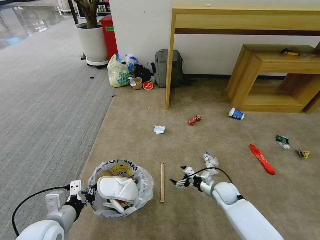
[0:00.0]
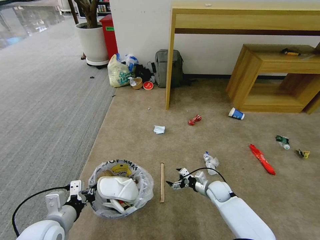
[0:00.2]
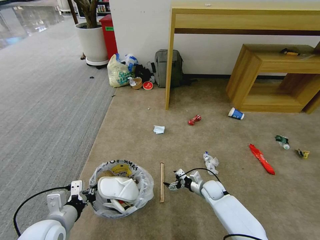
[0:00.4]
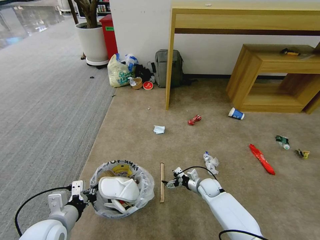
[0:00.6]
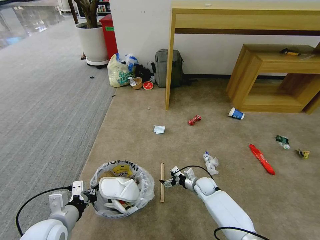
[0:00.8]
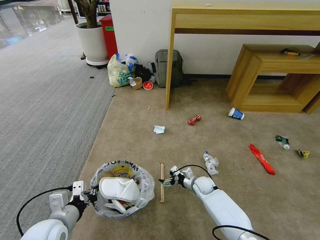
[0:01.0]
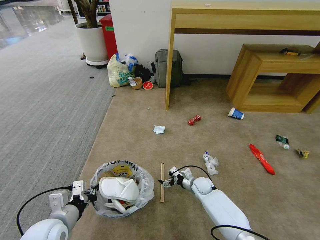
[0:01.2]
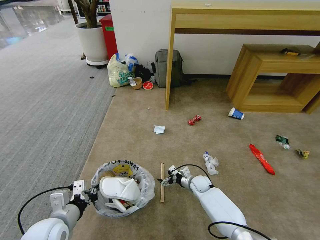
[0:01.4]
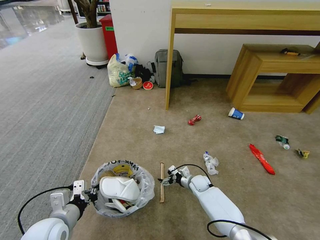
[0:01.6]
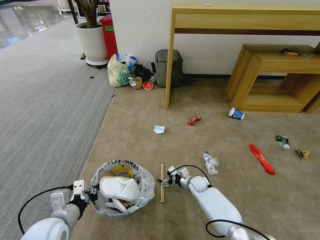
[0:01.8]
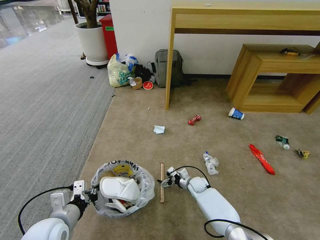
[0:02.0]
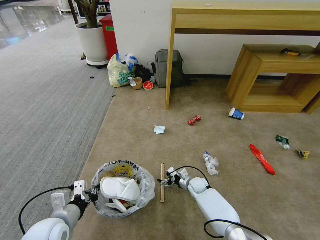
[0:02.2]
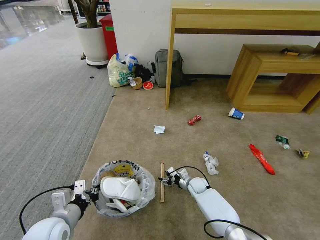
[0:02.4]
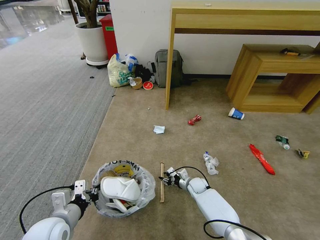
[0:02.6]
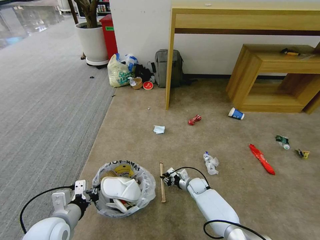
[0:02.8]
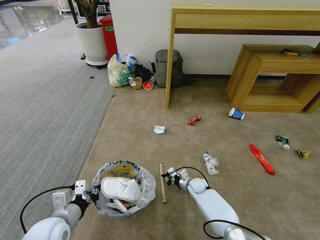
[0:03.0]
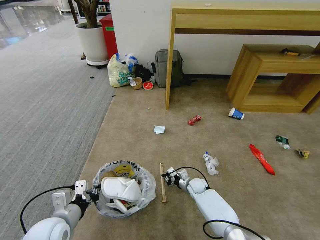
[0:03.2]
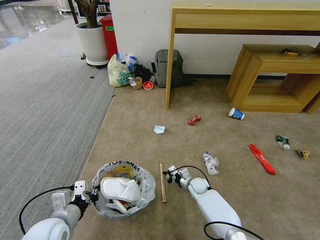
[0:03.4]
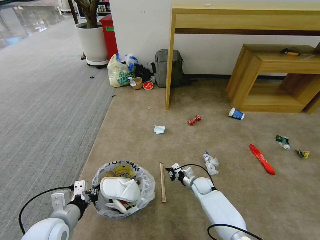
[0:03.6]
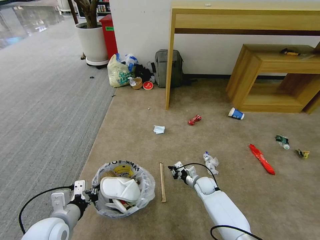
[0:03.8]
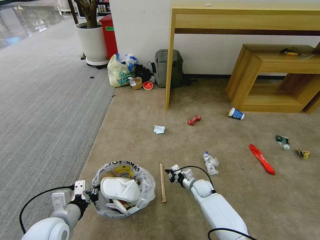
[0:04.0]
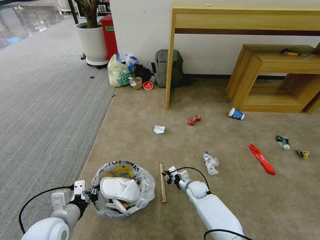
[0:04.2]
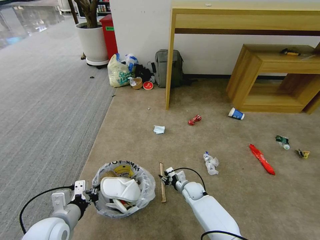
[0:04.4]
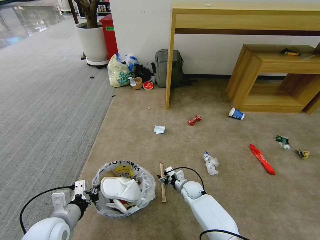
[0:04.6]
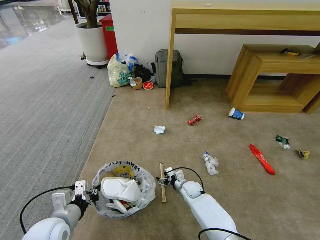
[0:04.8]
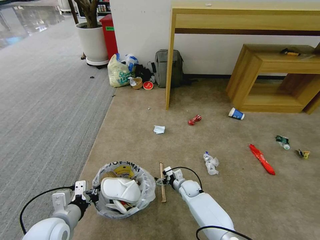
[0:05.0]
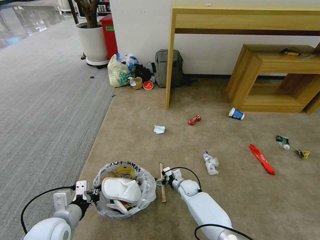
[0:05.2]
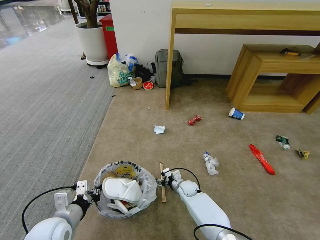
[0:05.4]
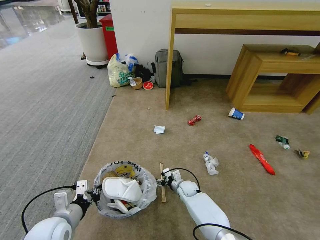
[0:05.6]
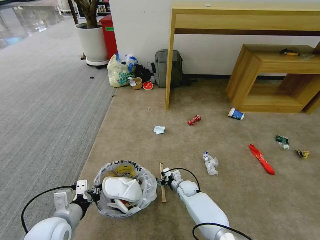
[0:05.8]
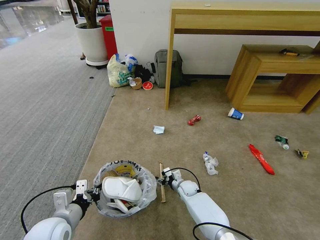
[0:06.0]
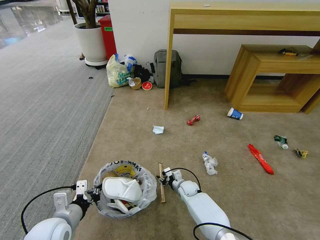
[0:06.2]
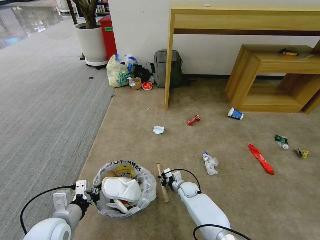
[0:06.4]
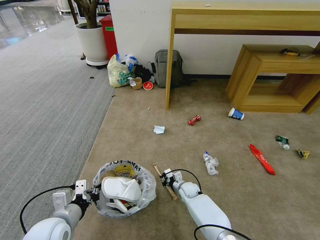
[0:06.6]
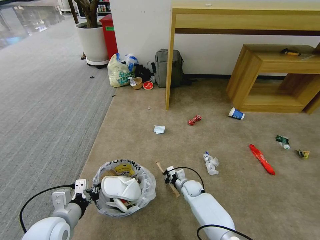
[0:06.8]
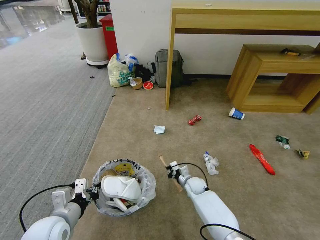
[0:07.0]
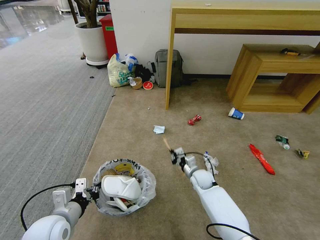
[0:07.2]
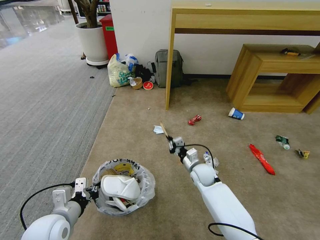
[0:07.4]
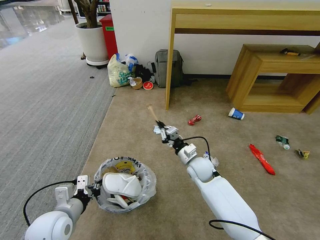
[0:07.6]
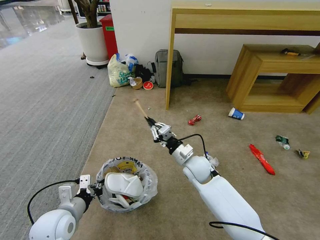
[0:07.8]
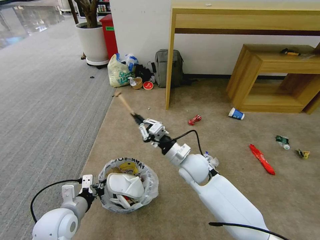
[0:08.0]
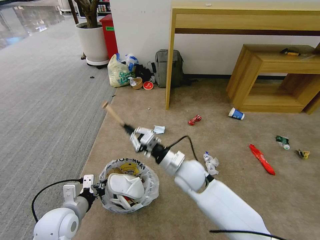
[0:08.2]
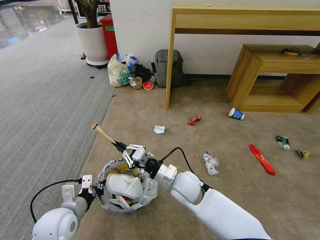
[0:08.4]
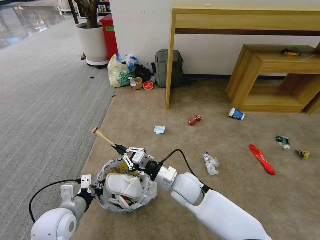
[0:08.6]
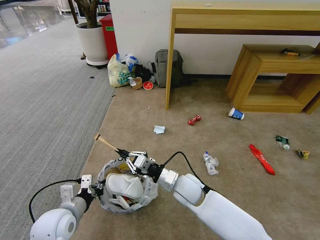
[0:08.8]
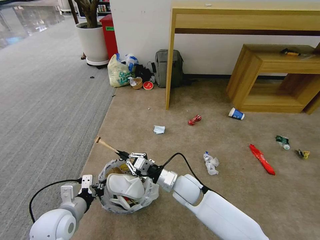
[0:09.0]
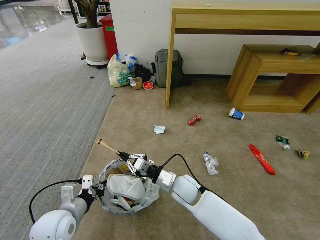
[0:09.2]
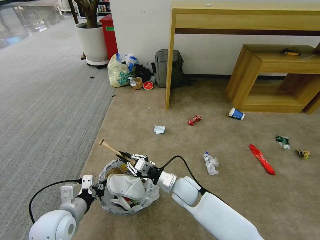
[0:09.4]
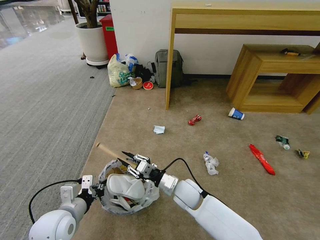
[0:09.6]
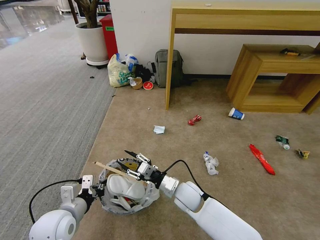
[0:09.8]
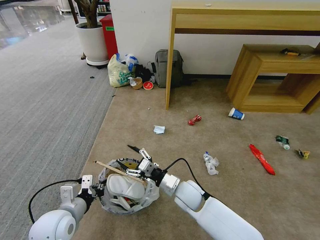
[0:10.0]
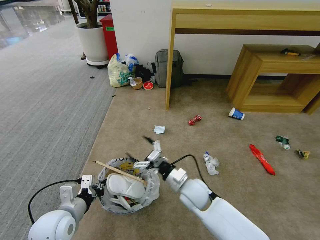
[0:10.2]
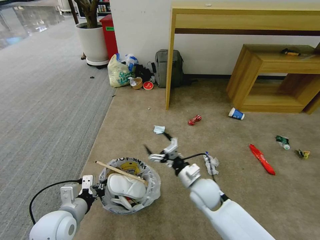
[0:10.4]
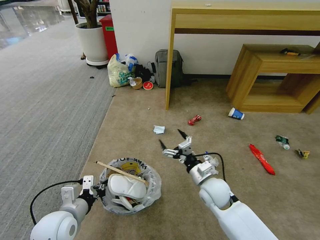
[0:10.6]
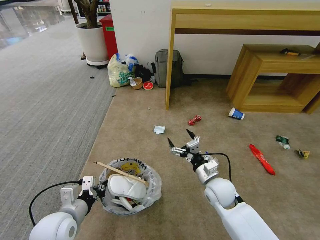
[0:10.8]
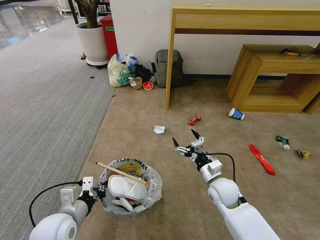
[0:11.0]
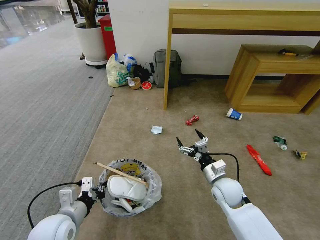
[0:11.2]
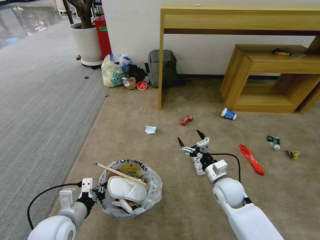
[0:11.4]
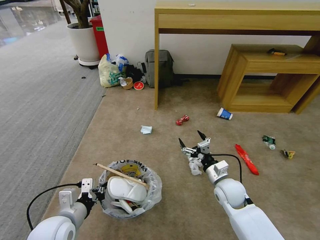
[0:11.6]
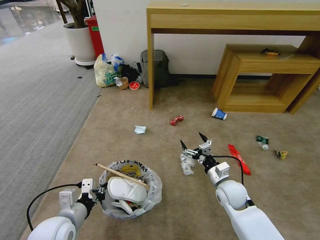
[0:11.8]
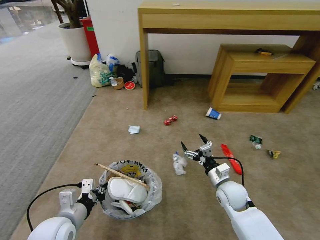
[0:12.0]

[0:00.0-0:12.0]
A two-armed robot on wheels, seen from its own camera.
Task of the whole recording: Pick up the trash bin and place the garbage on the floor into it.
0:00.0 to 0:01.6: The right gripper shifts approximately 10 cm to the left, forward and downward.
0:01.6 to 0:03.0: The right gripper closes.
0:03.0 to 0:06.0: The grippers make only small movements.
0:06.0 to 0:07.6: The right gripper moves upward, approximately 20 cm, and closes its fingers.
0:07.6 to 0:09.0: The right gripper heads backward and to the left, covering approximately 10 cm.
0:09.0 to 0:10.4: The right gripper opens its fingers.
0:10.4 to 0:12.0: The right gripper travels to the right by some 10 cm.

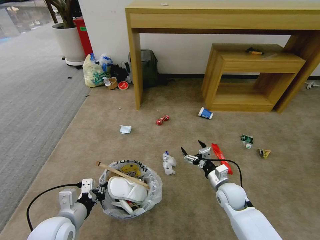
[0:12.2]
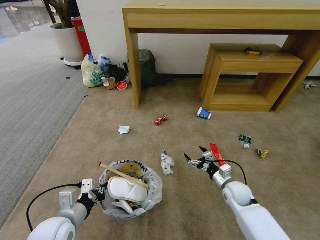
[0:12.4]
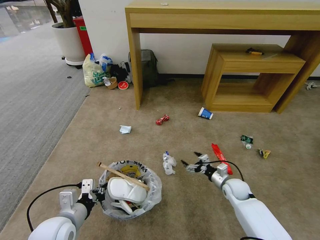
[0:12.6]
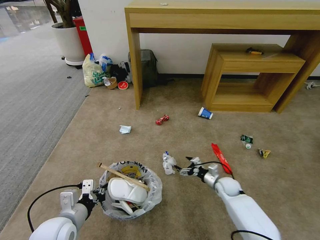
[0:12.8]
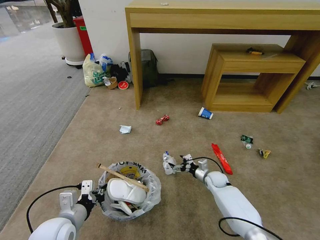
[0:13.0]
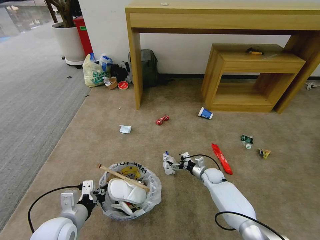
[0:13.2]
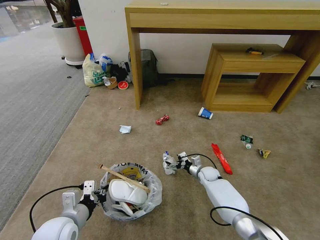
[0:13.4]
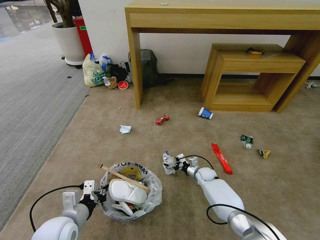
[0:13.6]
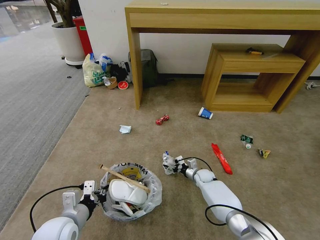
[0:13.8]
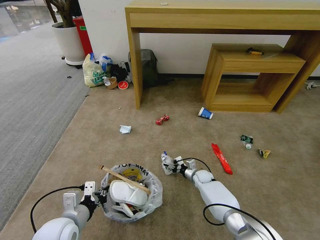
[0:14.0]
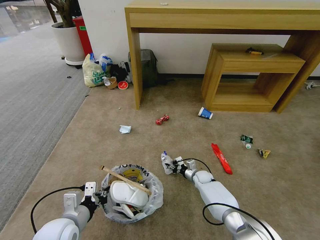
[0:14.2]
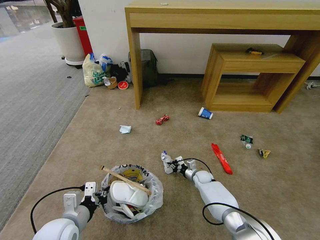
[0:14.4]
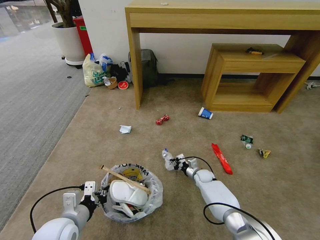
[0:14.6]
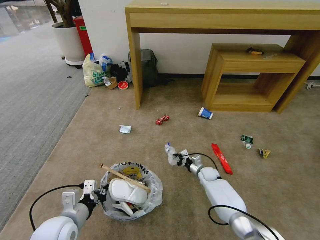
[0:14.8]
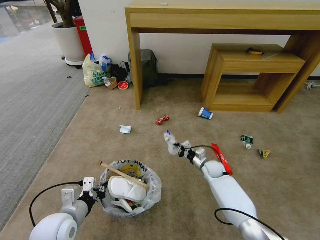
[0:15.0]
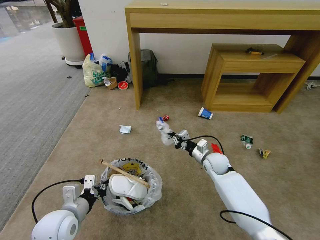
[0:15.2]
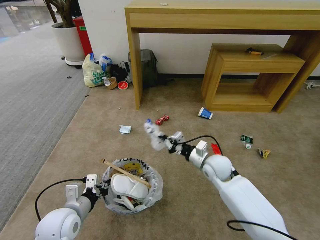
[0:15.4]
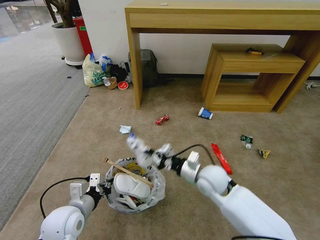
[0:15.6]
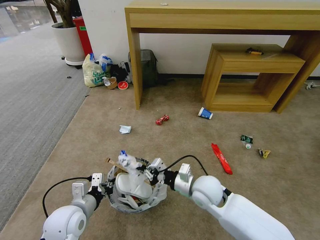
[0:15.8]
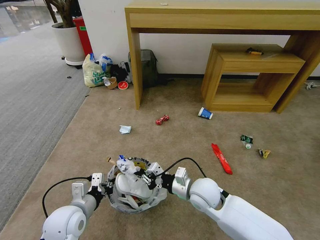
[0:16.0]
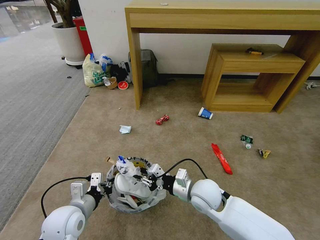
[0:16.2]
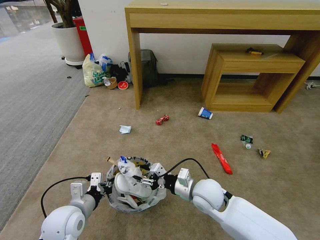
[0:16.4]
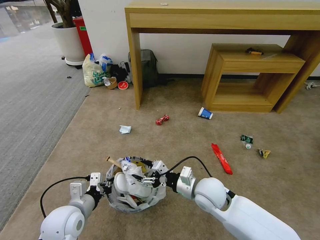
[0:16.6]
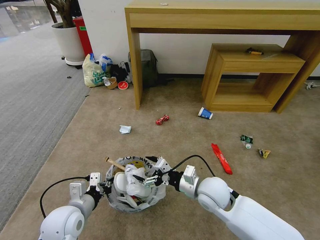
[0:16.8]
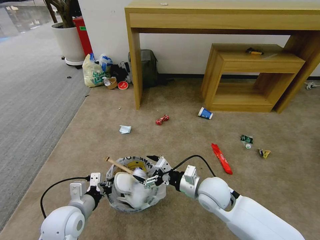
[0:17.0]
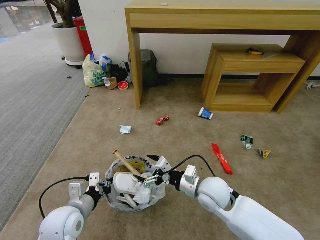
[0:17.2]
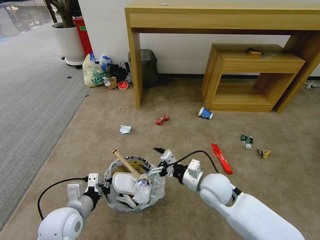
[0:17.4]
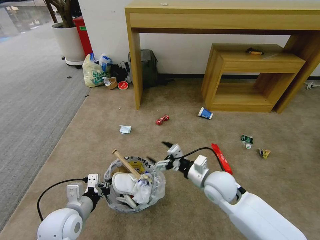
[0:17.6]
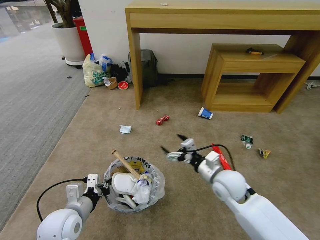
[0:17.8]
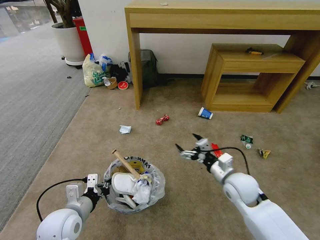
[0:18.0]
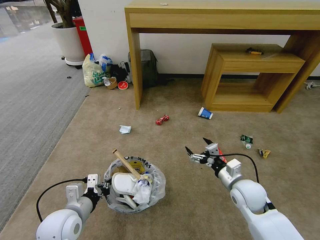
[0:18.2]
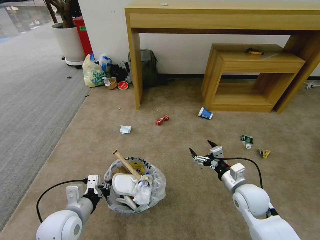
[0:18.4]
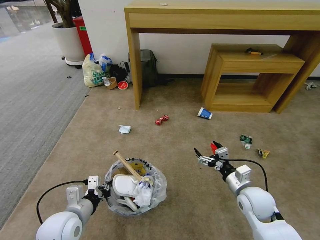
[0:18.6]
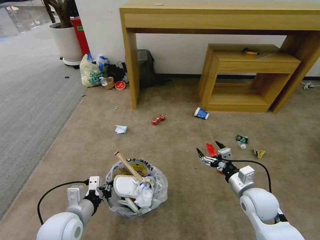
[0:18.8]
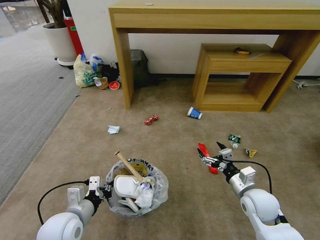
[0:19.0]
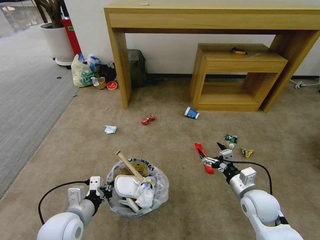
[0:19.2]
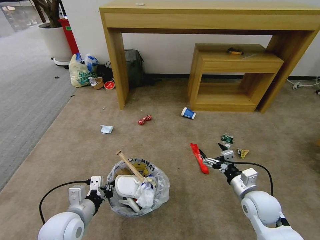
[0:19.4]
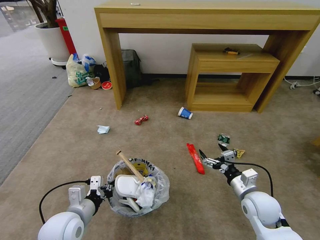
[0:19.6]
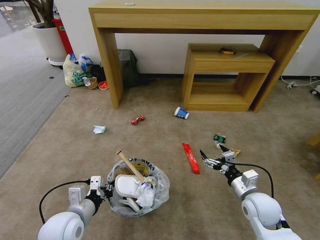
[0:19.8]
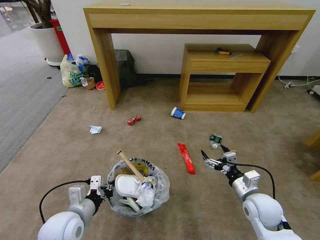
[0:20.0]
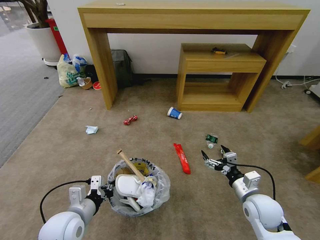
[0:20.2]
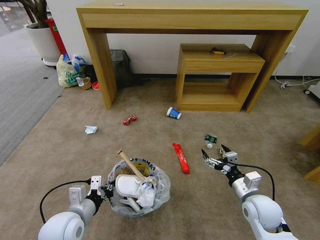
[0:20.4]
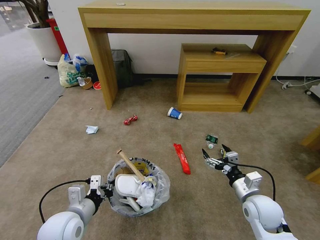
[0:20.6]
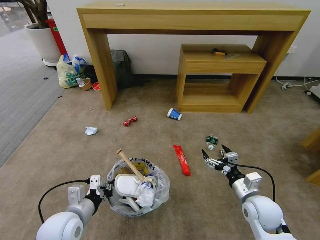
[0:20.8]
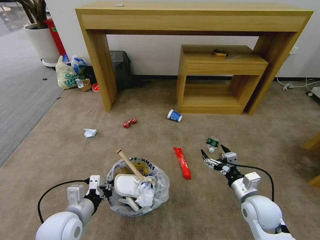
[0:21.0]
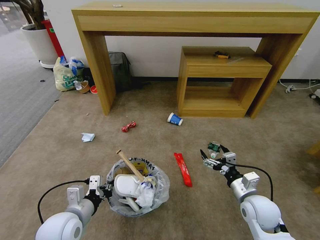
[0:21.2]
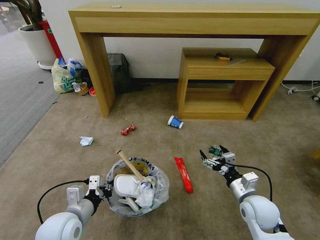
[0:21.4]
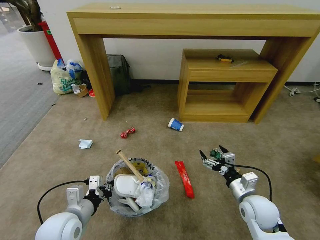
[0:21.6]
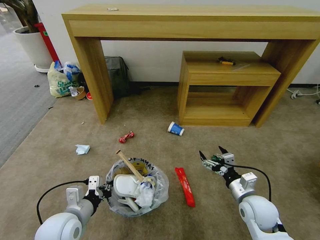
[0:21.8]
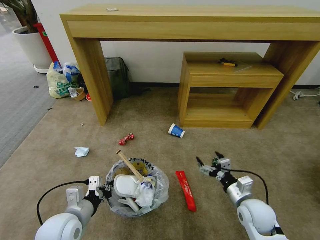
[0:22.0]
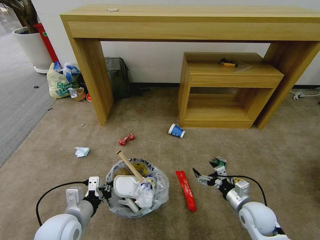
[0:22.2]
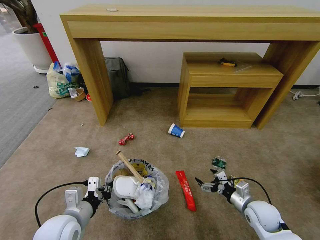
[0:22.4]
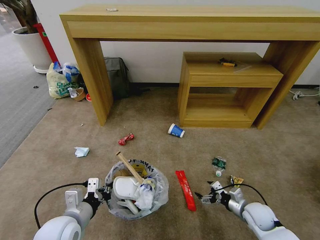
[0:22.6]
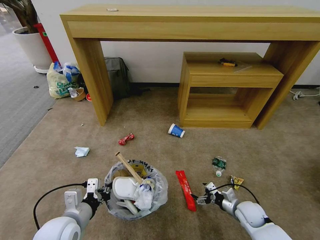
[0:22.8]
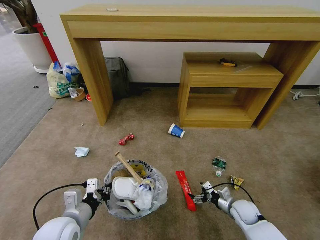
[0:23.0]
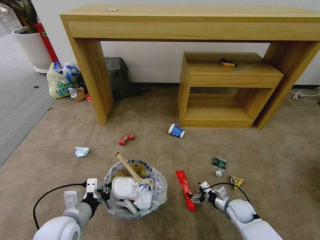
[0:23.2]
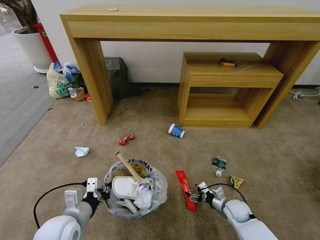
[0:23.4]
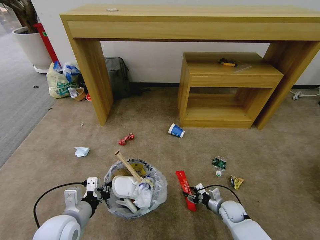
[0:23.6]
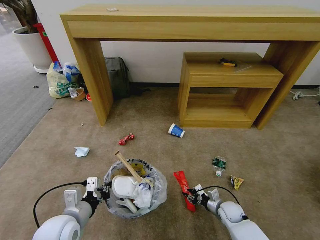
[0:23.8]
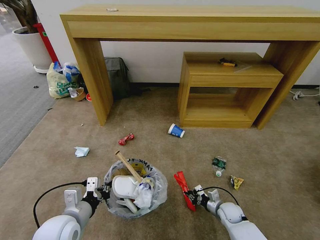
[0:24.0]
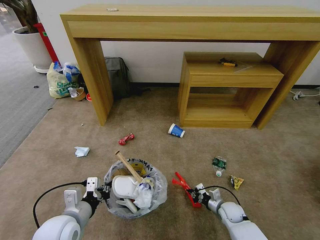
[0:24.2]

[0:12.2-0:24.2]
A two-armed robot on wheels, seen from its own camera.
Task of the whole recording: Pick up the trash bin and place the garbage on the floor into it.
0:12.2 to 0:13.8: The right gripper goes some 20 cm forward and downward.
0:13.8 to 0:15.2: The right gripper moves upward, roughly 15 cm, and closes.
0:15.2 to 0:16.6: The right gripper shifts approximately 20 cm backward, to the left and upward, and opens up.
0:16.6 to 0:18.2: The right gripper shifts some 15 cm to the right.
0:21.2 to 0:22.6: The right gripper moves downward and to the right, roughly 10 cm.
0:22.6 to 0:24.2: The right gripper travels downward and to the left by approximately 10 cm, and closes up.
